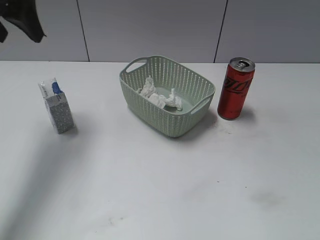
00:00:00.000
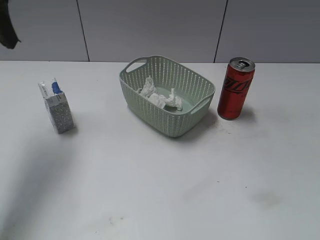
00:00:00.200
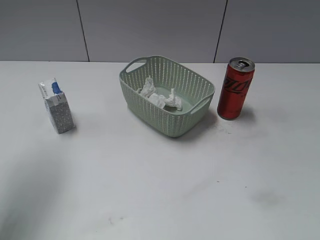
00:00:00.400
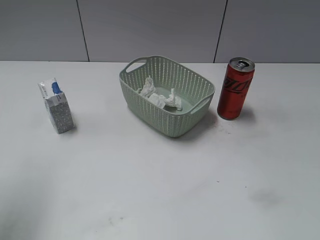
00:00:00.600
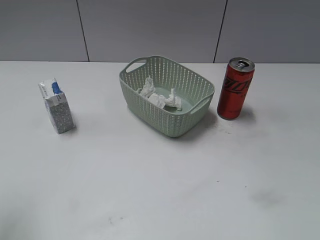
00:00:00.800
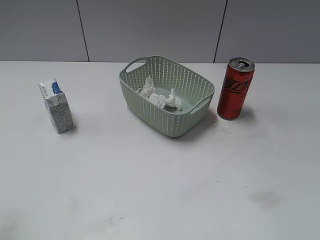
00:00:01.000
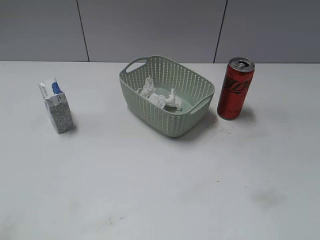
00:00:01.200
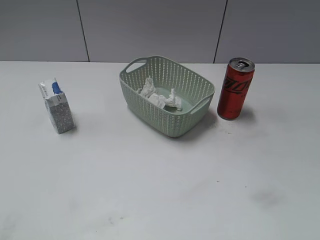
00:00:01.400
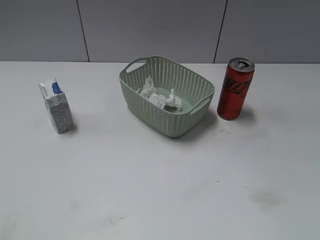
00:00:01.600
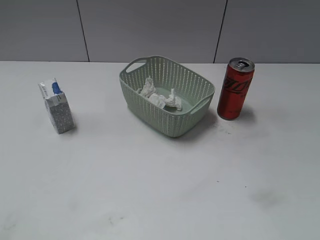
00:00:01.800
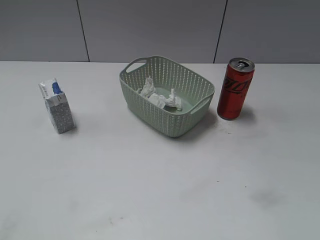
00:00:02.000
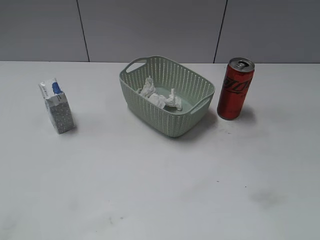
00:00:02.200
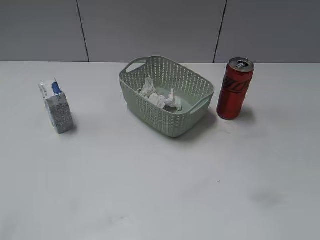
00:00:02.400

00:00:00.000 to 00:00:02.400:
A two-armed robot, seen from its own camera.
00:00:00.000 to 00:00:01.200: The left gripper goes some 25 cm backward.

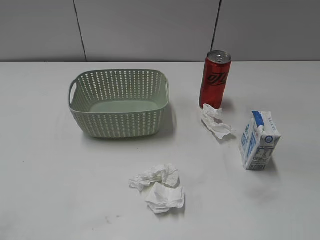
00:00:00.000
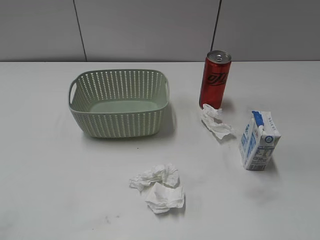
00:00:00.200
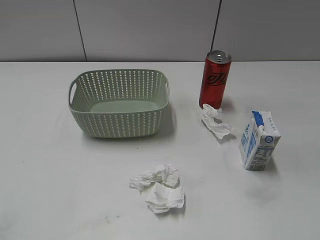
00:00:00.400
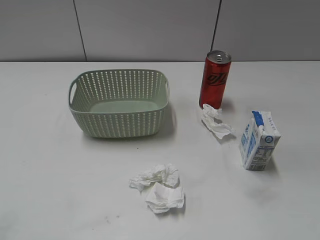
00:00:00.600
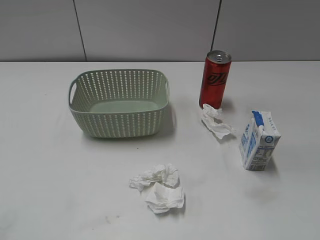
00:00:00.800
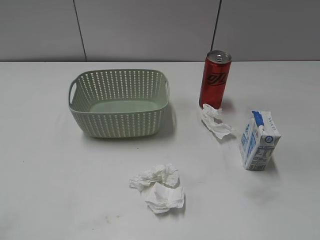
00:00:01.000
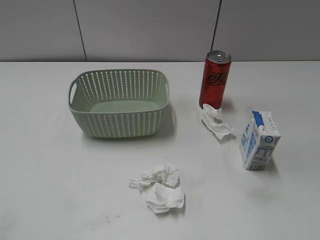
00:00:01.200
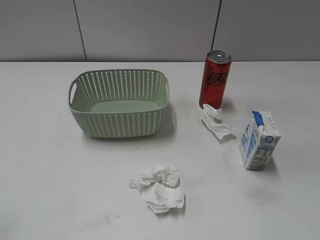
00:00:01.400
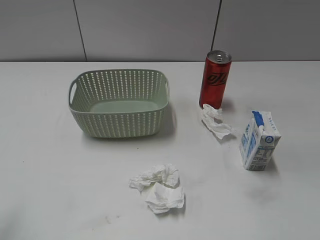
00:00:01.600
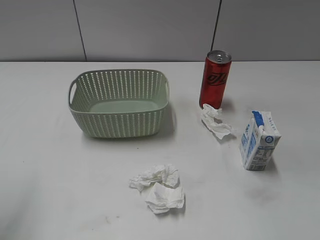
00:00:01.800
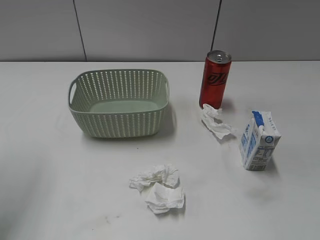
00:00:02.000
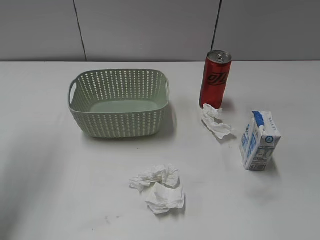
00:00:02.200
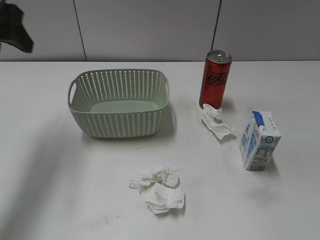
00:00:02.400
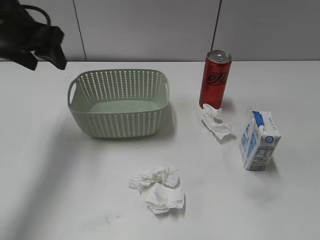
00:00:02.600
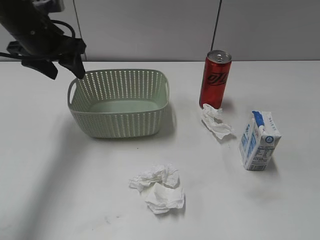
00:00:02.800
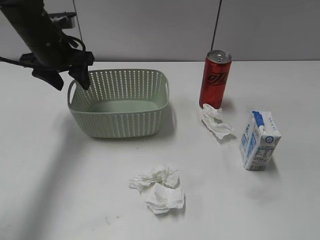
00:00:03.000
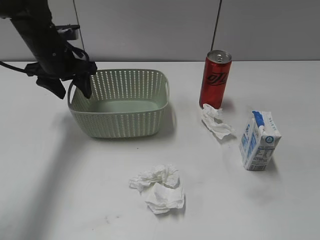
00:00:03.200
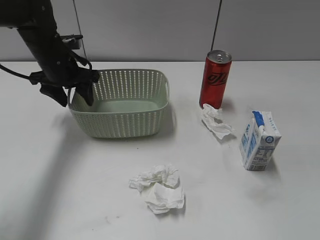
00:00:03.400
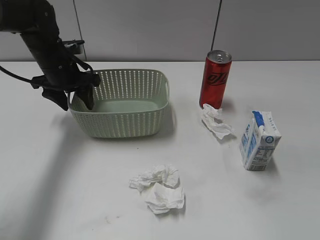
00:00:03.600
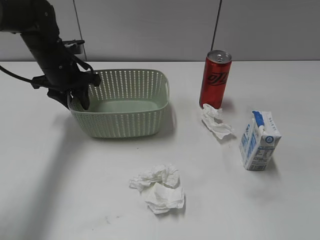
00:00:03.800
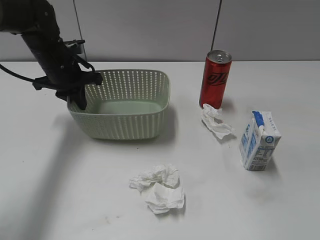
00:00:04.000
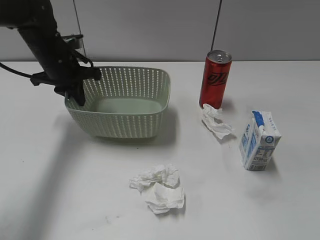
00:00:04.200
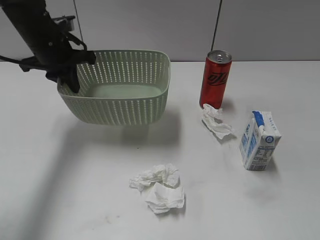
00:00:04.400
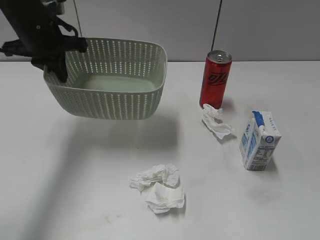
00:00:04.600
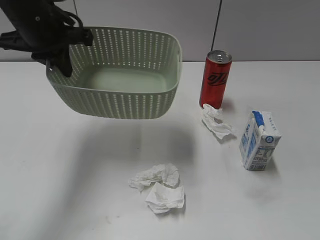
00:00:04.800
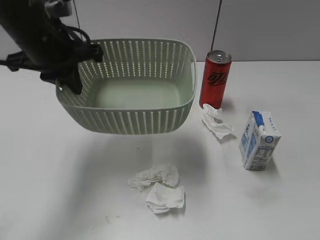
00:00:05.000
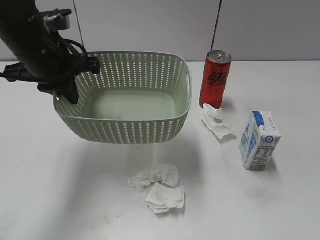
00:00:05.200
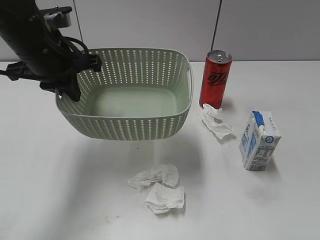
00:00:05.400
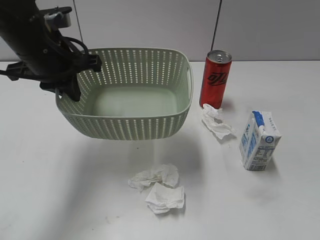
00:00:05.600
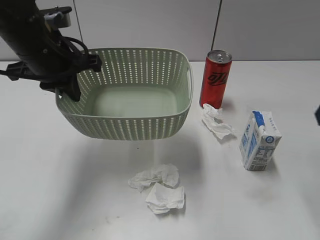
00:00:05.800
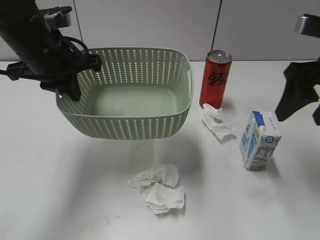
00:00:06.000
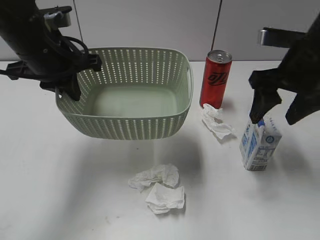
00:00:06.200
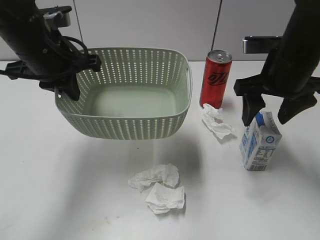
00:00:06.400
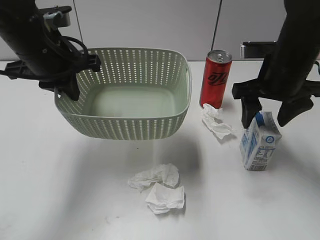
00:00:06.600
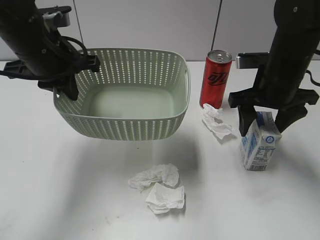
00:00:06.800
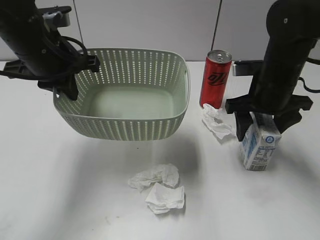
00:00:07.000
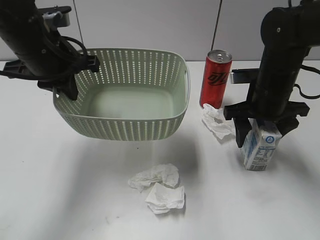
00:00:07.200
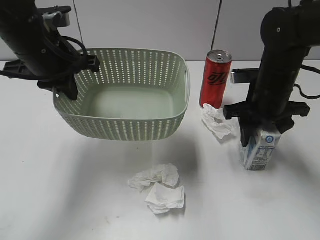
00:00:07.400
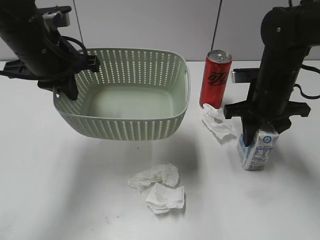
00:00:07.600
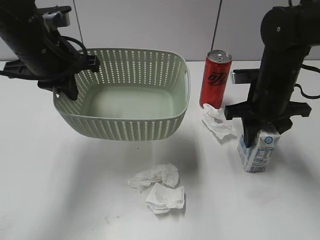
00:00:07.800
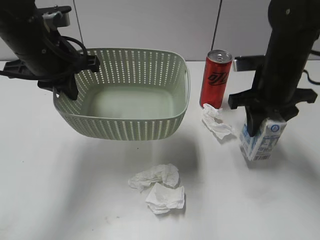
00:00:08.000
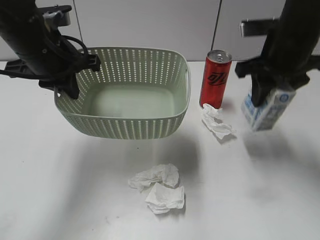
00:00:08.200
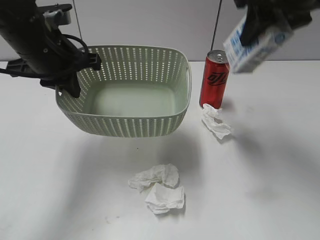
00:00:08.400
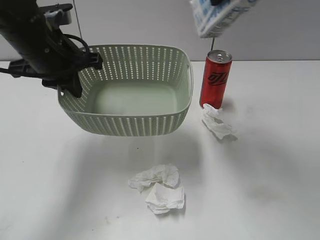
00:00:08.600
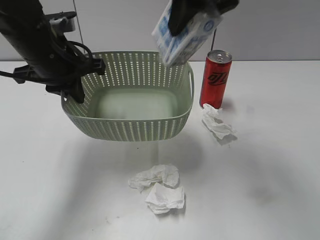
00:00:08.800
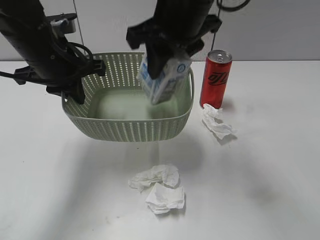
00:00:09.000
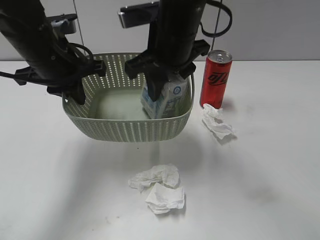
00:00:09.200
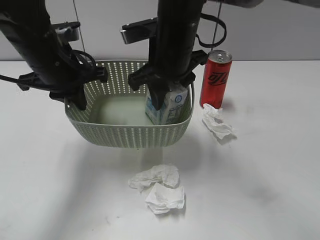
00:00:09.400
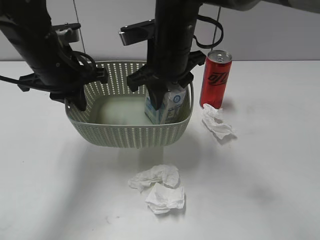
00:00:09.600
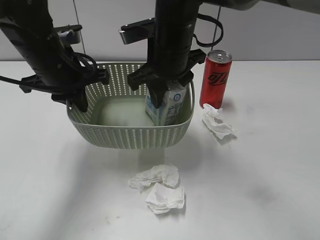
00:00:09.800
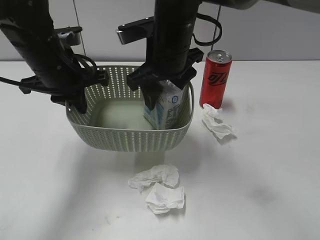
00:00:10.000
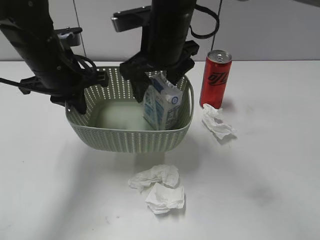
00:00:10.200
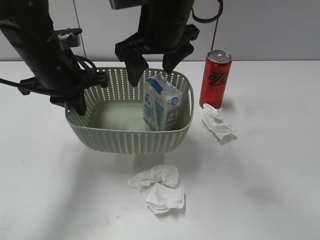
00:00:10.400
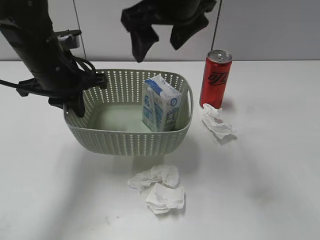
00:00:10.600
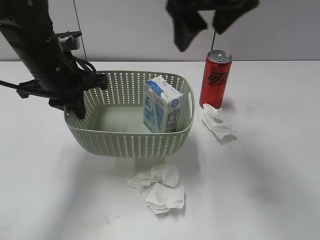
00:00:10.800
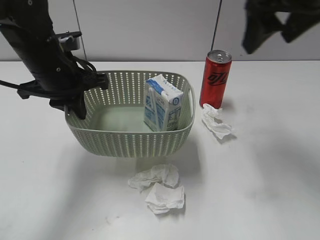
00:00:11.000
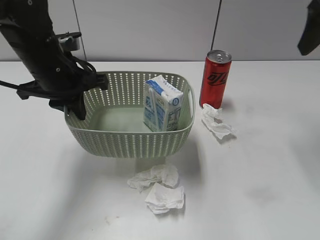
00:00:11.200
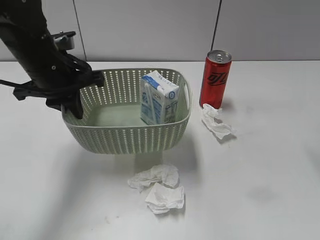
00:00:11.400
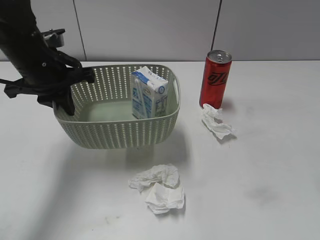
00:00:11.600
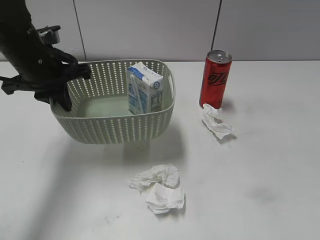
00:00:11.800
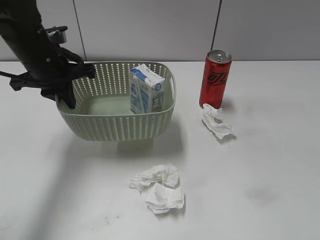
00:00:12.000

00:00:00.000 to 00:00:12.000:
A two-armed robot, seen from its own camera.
Step, 00:00:02.400 to 00:00:04.000: Grasp the basket with left gripper.
Step, 00:00:04.200 to 00:00:05.600: Lift the basket with left gripper.
Step, 00:00:05.800 to 00:00:07.800: Grasp the milk with right gripper.
Step, 00:00:08.000 to 00:00:10.600: Place the milk in the basket with right gripper.
00:00:01.600 to 00:00:03.000: The left gripper is displaced forward and downward by approximately 35 cm.
00:00:03.000 to 00:00:04.400: The left gripper closes.
00:00:04.400 to 00:00:06.000: The left gripper is displaced backward by about 10 cm. The right gripper is displaced forward by some 30 cm.
00:00:06.000 to 00:00:07.600: The right gripper is displaced downward and forward by approximately 10 cm, and closes its fingers.
00:00:07.600 to 00:00:09.000: The right gripper moves to the left and upward, some 20 cm.
00:00:09.000 to 00:00:10.400: The right gripper opens.
00:00:10.400 to 00:00:12.000: The left gripper ends up about 5 cm from where it was. Meanwhile the right gripper goes about 40 cm to the right and backward.

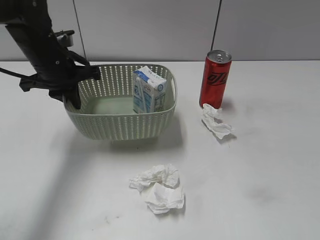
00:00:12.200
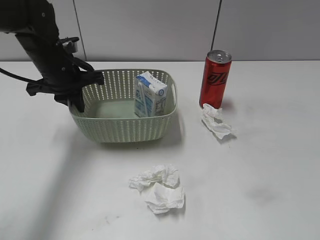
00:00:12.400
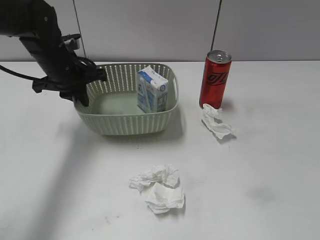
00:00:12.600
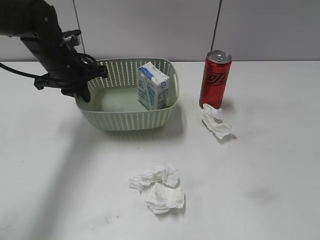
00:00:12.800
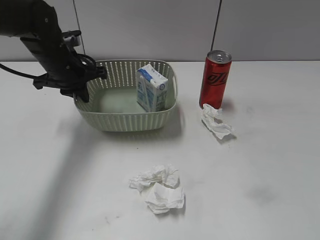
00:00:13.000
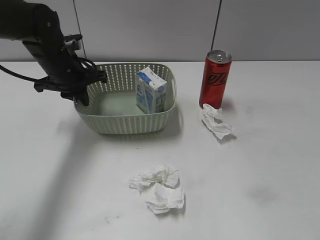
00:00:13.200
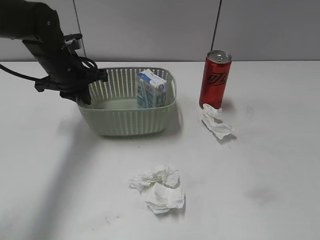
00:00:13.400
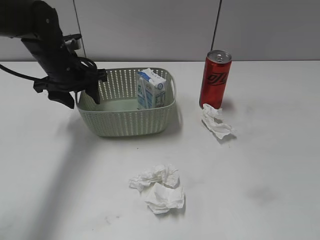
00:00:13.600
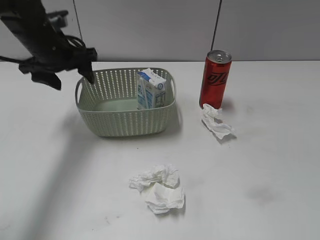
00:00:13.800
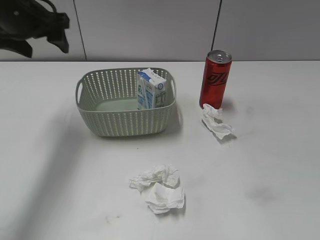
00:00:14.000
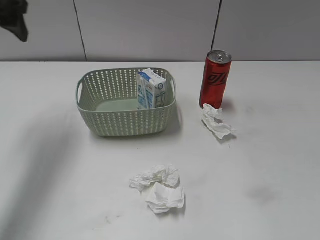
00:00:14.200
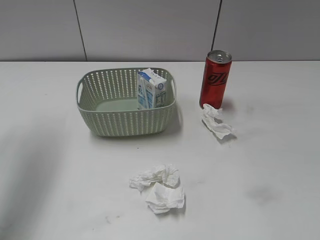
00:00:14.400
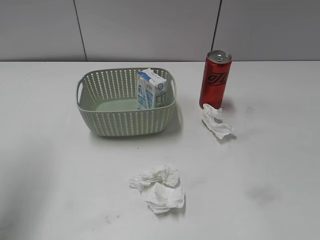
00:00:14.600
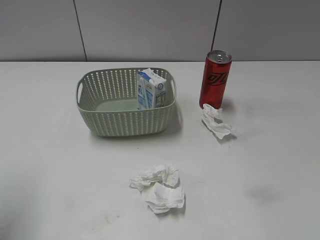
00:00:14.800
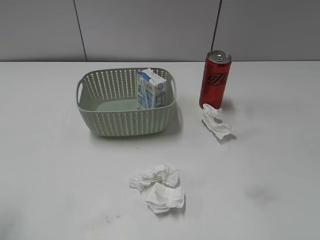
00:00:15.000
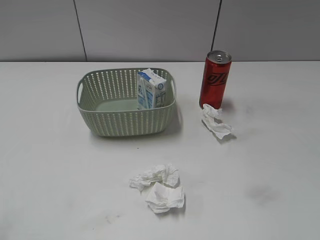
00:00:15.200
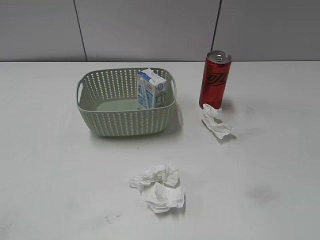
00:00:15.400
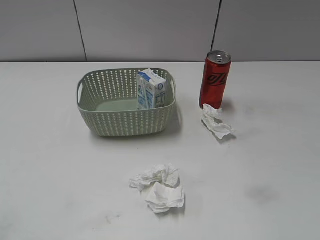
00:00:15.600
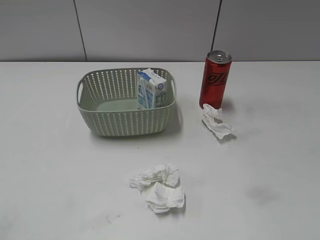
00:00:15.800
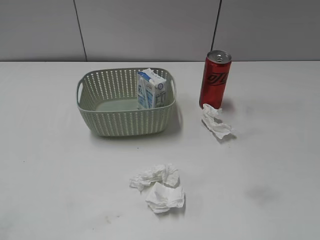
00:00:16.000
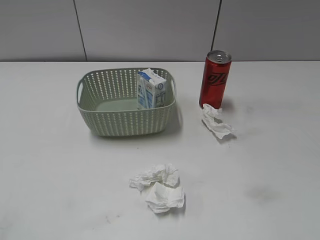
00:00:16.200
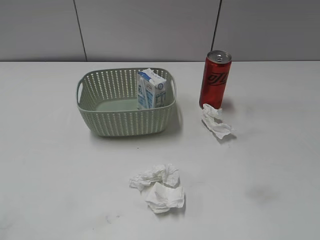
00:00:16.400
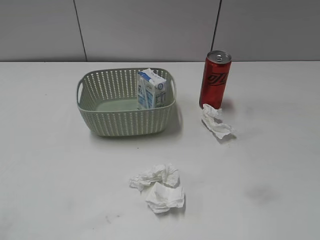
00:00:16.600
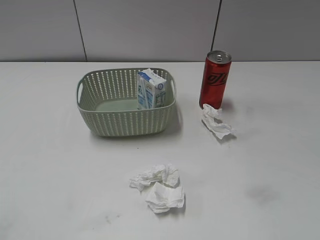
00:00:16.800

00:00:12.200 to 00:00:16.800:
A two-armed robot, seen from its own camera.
00:00:12.200 to 00:00:13.800: The left gripper shifts by approximately 5 cm, and opens. The right gripper travels backward by about 5 cm.
00:00:13.800 to 00:00:15.200: The left gripper is displaced backward by approximately 35 cm.
